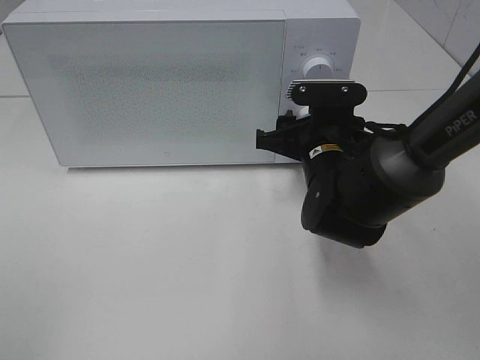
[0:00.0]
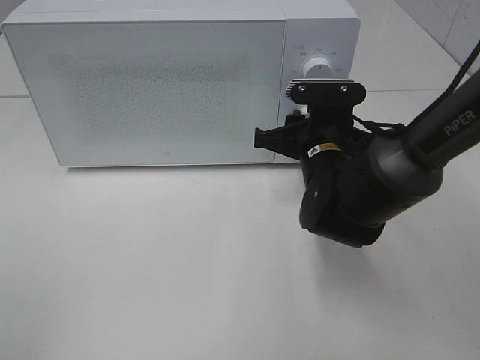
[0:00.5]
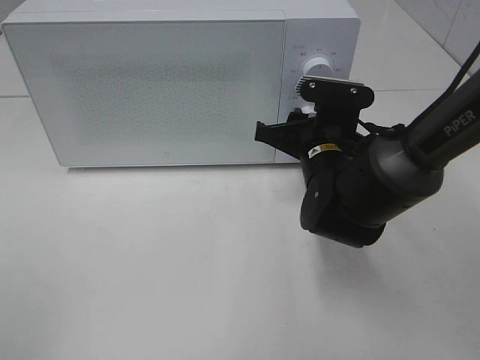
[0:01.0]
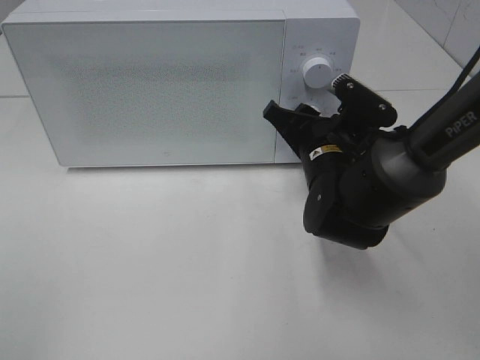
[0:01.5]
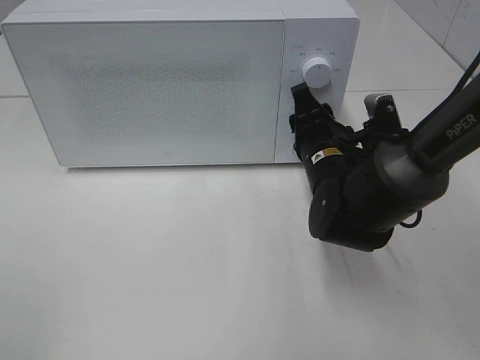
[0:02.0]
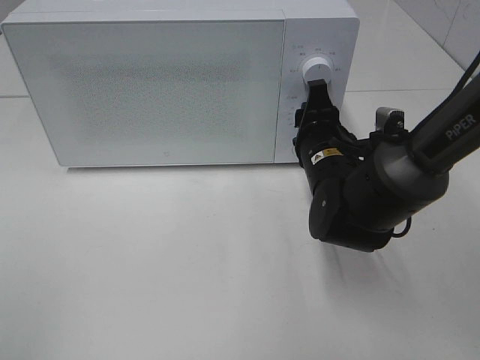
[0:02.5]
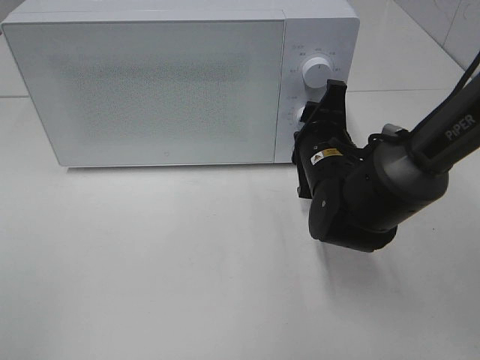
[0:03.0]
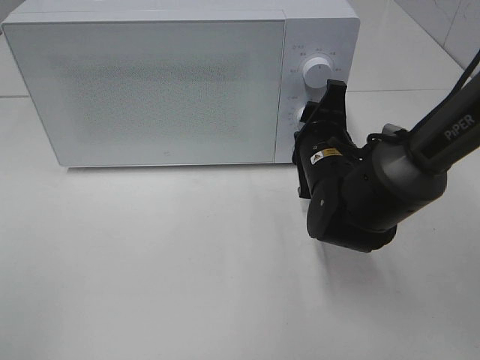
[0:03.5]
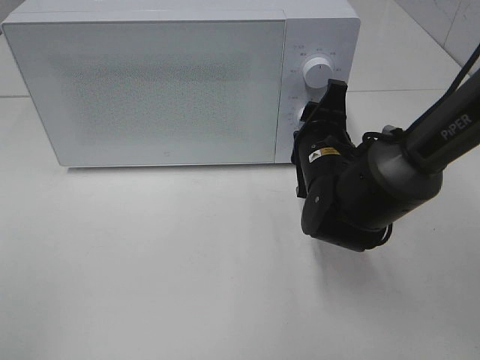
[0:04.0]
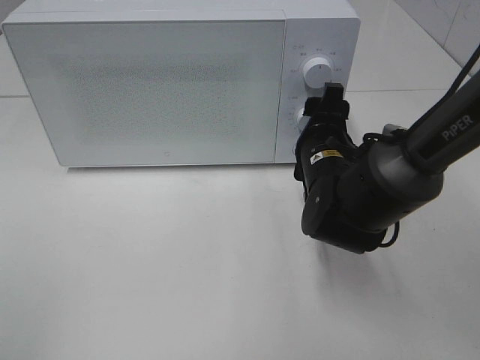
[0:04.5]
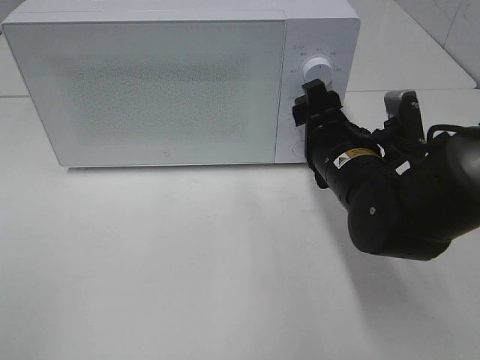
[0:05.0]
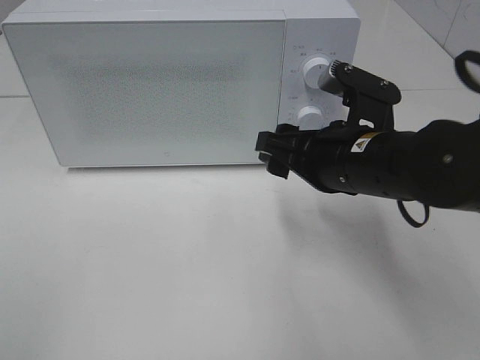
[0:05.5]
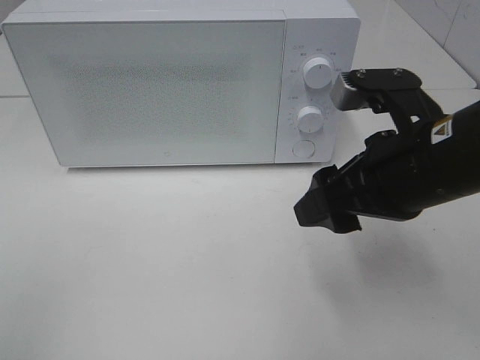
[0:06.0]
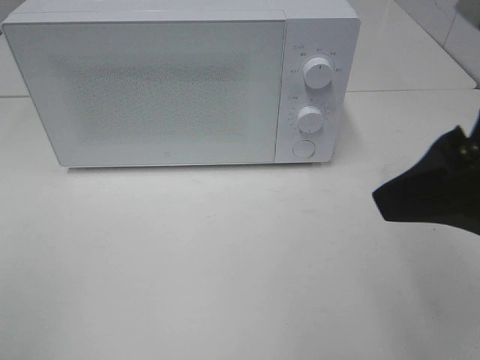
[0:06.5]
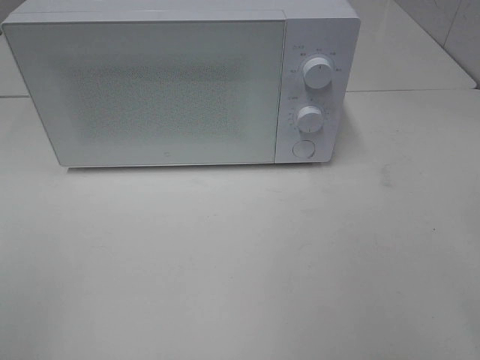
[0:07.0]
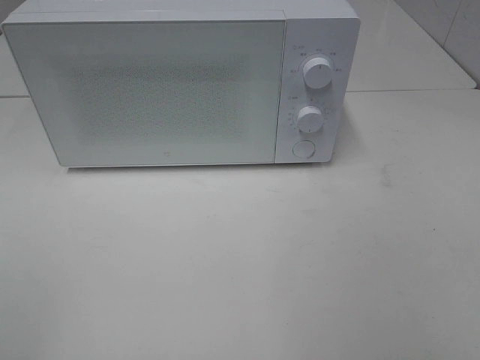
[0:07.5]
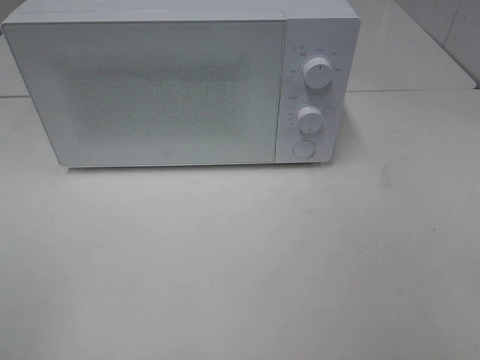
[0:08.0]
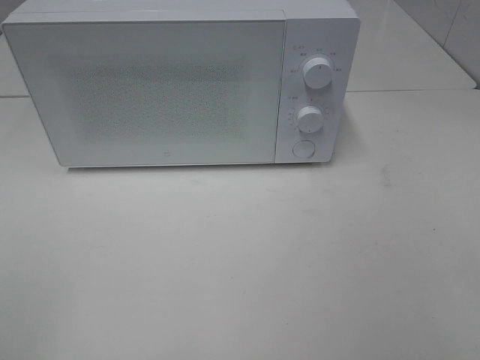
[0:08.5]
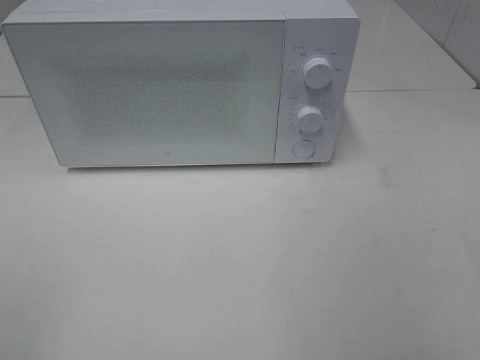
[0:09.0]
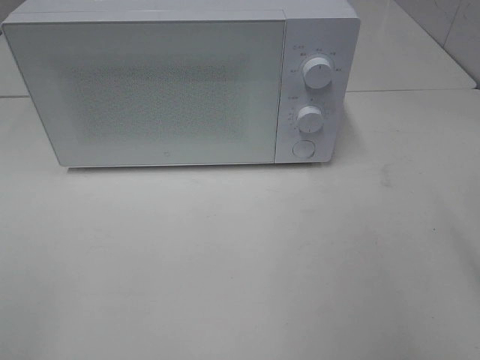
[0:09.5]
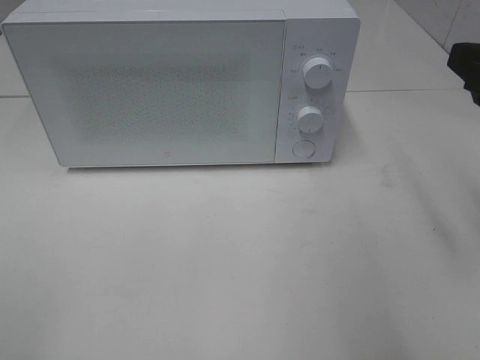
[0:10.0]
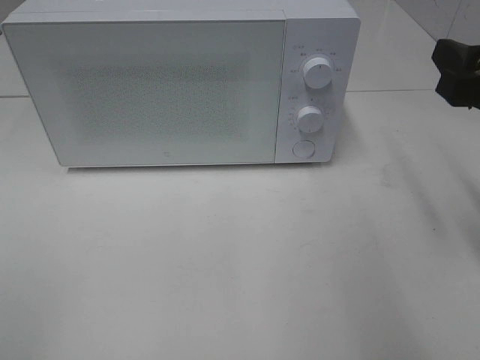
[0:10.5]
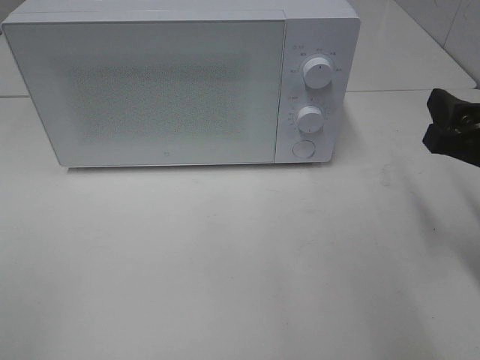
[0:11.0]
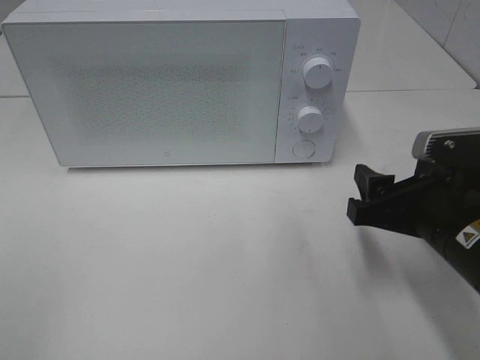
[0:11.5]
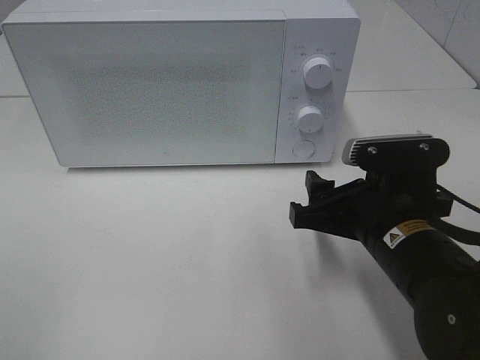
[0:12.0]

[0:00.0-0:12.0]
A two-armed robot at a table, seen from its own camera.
Task of the whole recording: Heat the burger.
Step, 0.0 to 4.0 s: Right hand: twist timer button.
4.0 to 6.0 s: The right gripper moves backward and upward, about 15 cm.
6.0 to 8.0 s: The right gripper shifts roughly 25 cm backward and to the right.
8.0 to 10.0 s: The right gripper goes approximately 20 cm forward.
10.0 to 12.0 s: The right gripper moves downward and to the left, some 20 cm.

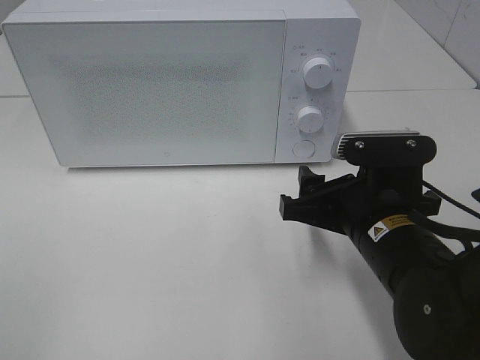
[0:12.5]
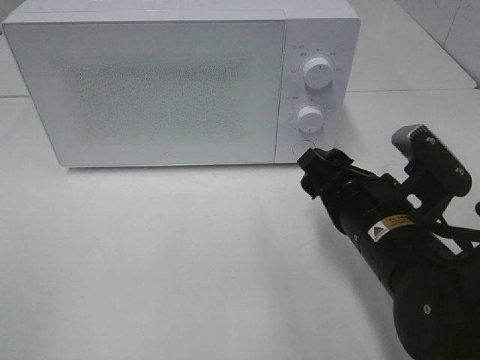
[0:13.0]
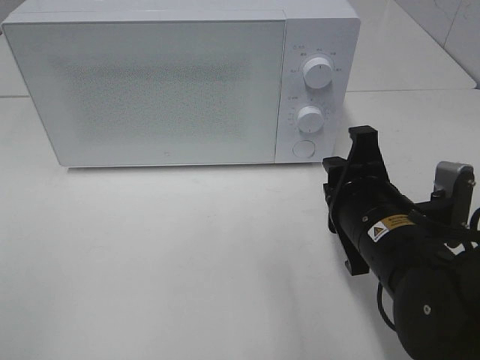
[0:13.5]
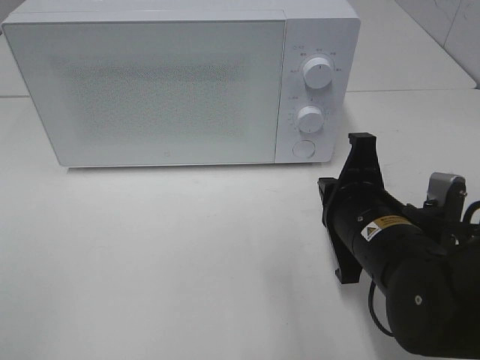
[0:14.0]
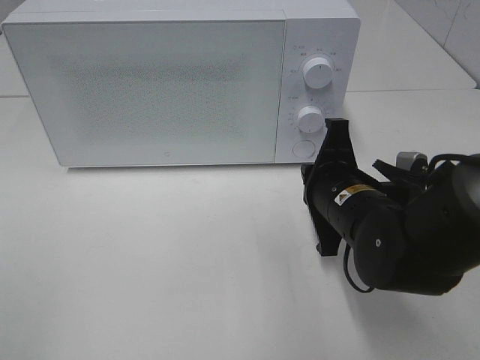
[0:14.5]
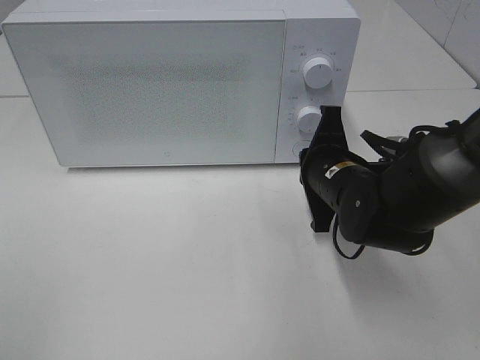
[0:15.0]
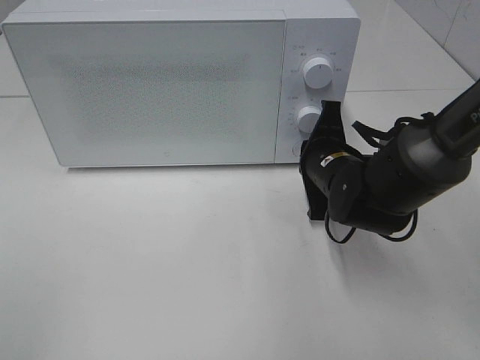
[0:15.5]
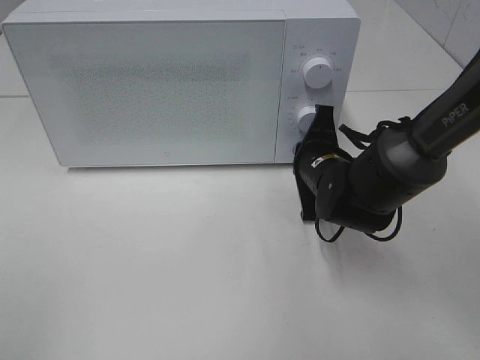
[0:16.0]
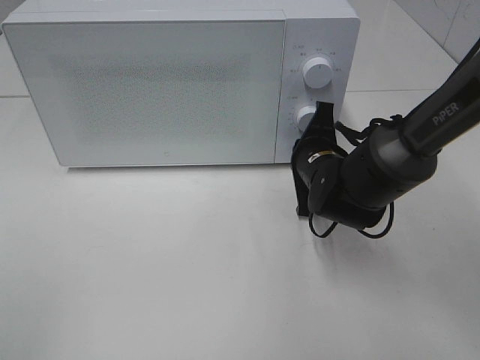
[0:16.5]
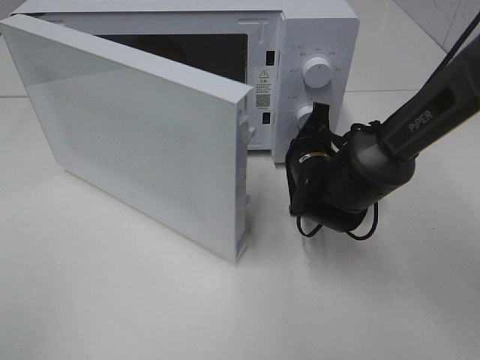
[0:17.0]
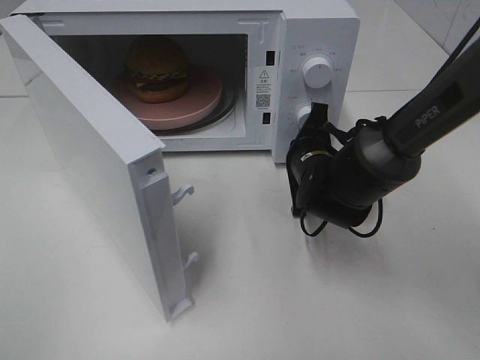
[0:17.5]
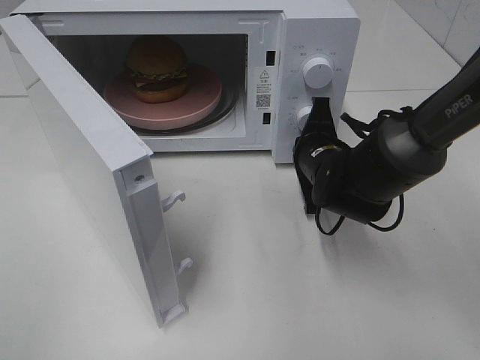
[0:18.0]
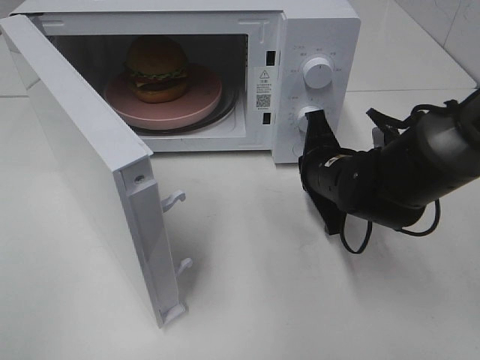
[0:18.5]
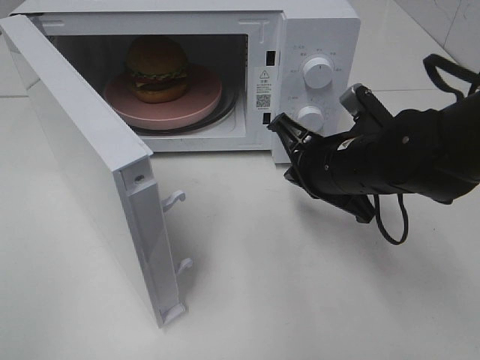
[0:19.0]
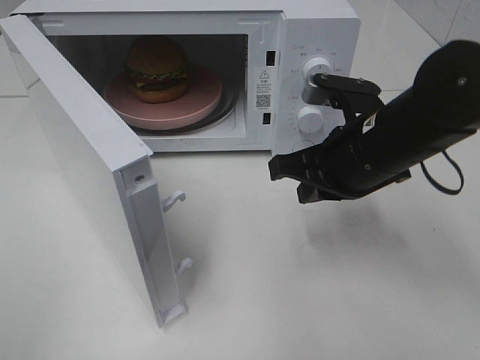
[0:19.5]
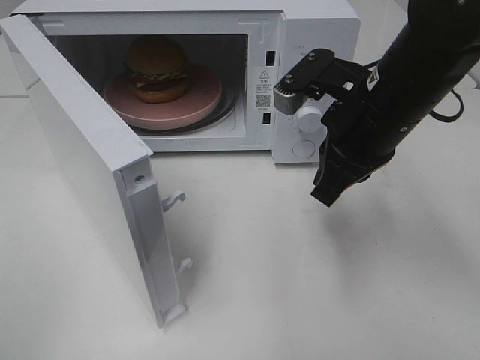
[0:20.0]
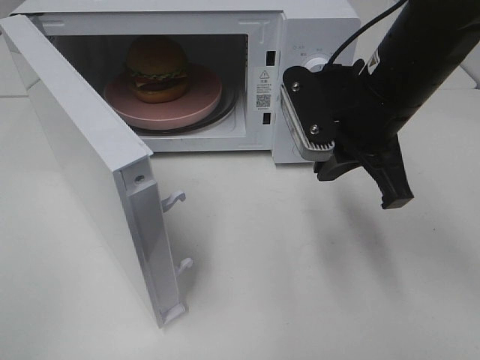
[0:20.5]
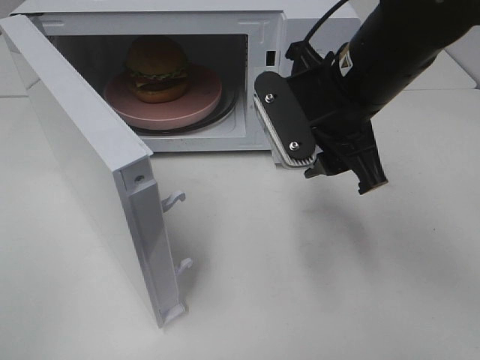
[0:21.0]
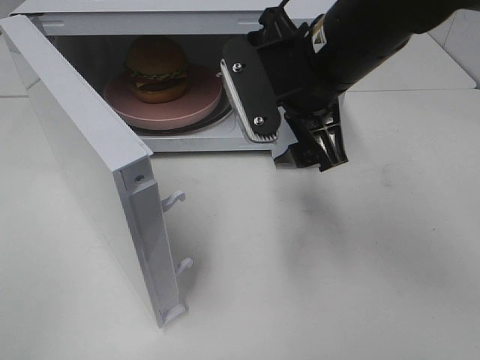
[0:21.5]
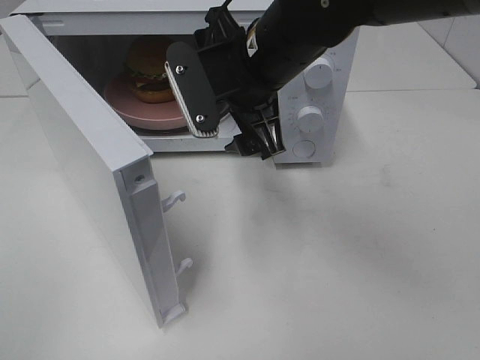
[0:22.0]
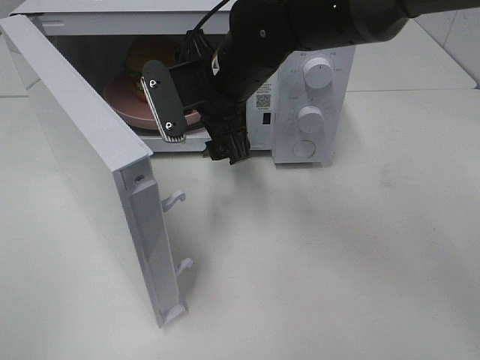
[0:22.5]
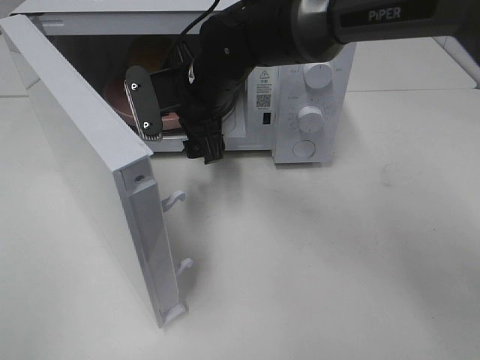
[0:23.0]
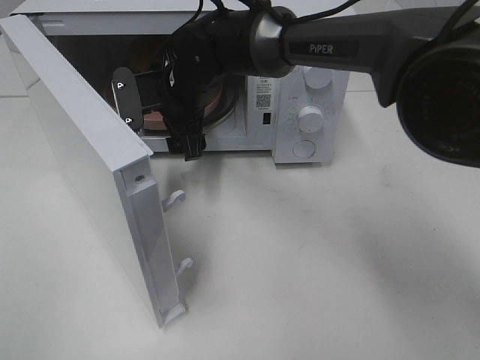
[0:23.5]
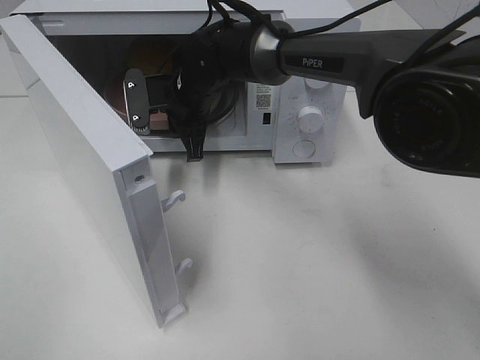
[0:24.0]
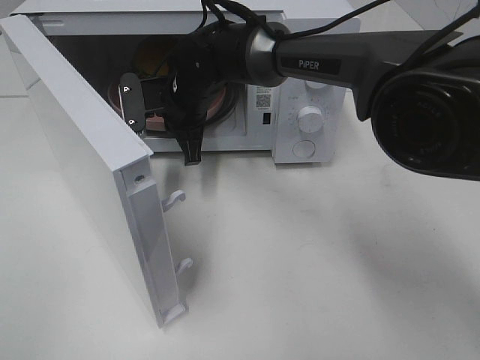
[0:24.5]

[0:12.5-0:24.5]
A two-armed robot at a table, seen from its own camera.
Task of the whole recording: Heat the burger.
Step, 12.5 to 18.5 s: Right hand: press the switch.
Step, 19.0 to 24.0 s: Right hand: grab the plate with the hamburger.
12.5 to 14.5 s: The right gripper changes place by some 5 cm, and closes up.
14.5 to 16.5 s: The right gripper heads forward, covering about 10 cm.
18.5 to 20.5 s: The right gripper is displaced upward by approximately 15 cm.
20.5 to 22.5 s: The right gripper goes approximately 15 cm to the left and forward, and opens up.
22.5 to 24.5 s: The right gripper moves forward, downward and to the left, approximately 10 cm, and closes its fingers.

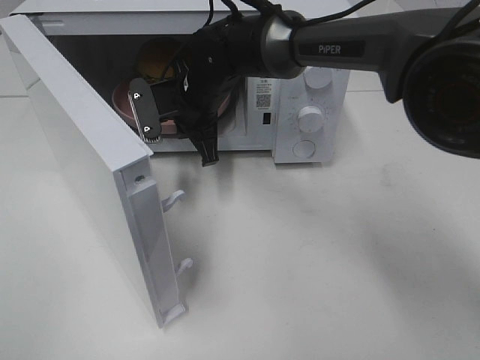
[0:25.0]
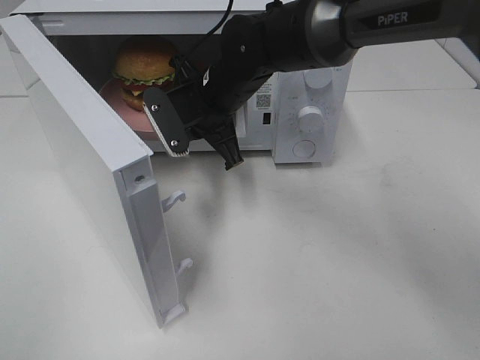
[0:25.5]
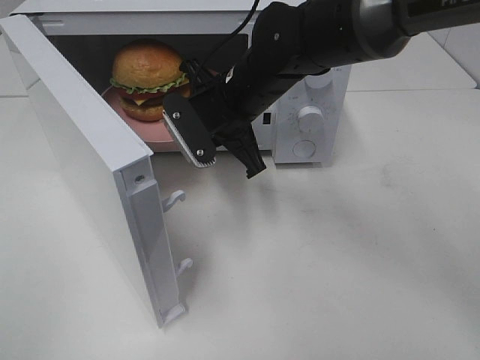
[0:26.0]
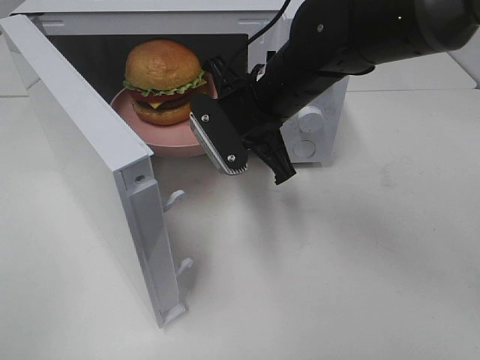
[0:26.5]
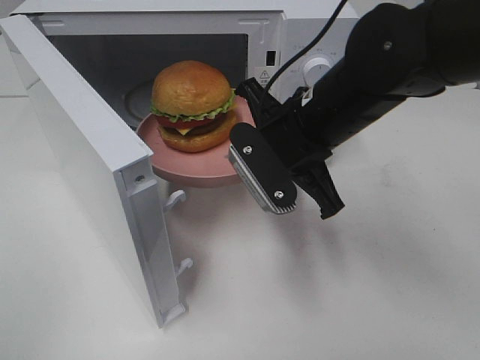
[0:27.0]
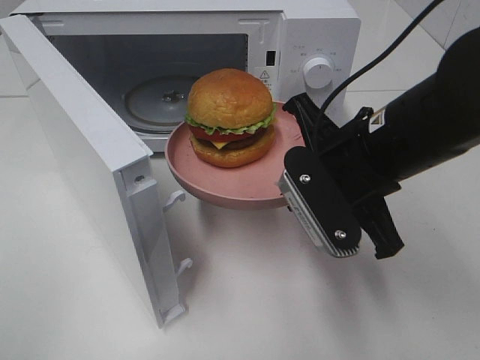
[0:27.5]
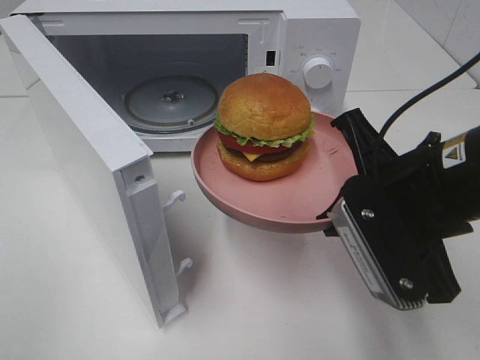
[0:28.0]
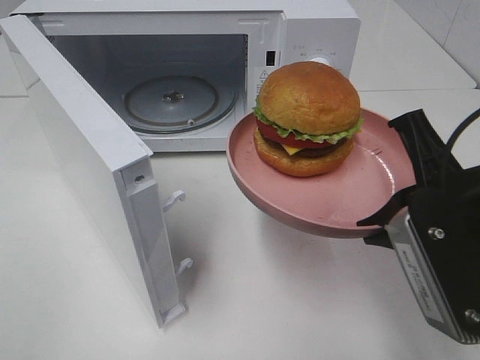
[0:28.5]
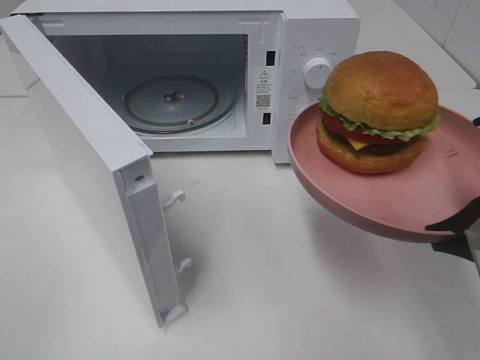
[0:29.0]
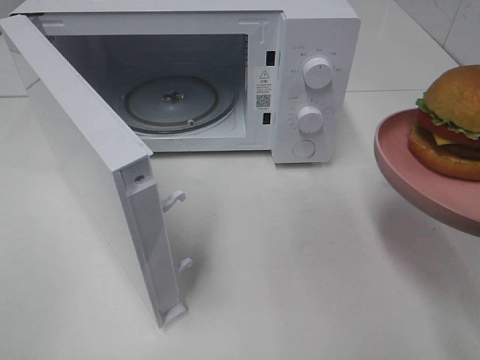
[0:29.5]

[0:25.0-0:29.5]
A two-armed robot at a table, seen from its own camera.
Task of the whole recording: Heat the burger.
25.0 to 27.0 s: The right gripper shifts some 20 cm backward and to the right.
27.0 to 29.5 s: The right gripper travels backward and to the right by roughly 20 cm.
